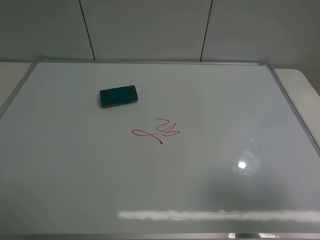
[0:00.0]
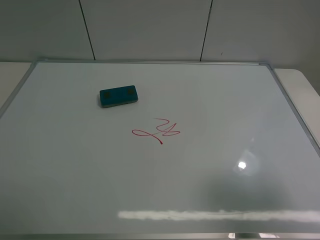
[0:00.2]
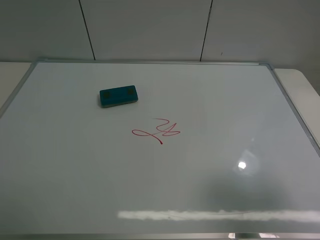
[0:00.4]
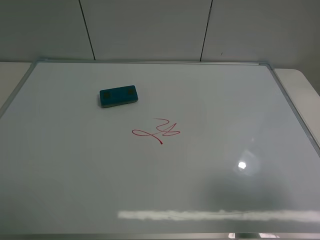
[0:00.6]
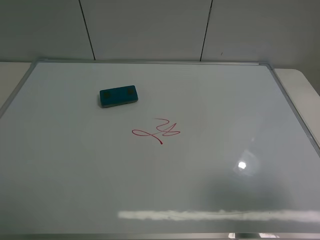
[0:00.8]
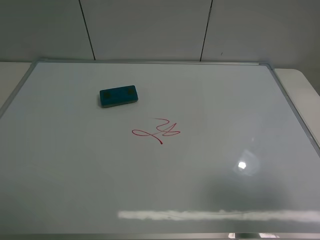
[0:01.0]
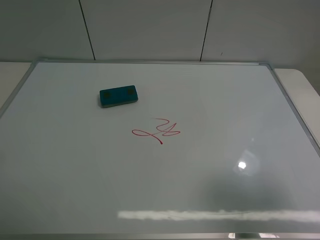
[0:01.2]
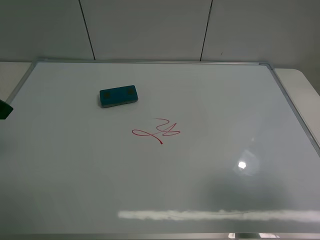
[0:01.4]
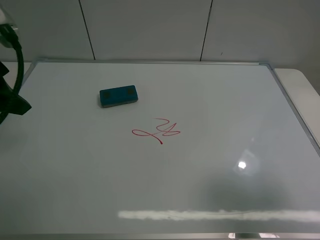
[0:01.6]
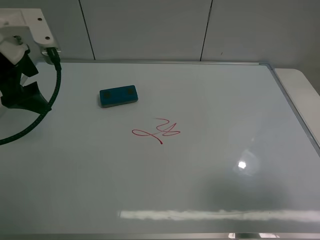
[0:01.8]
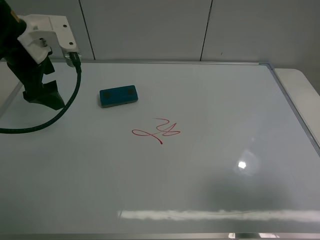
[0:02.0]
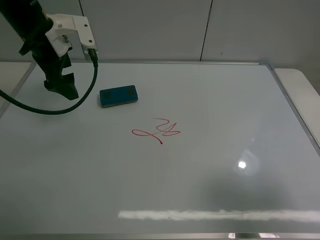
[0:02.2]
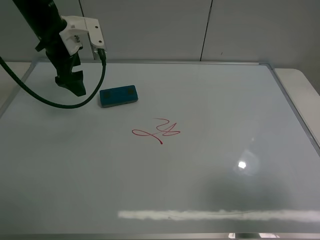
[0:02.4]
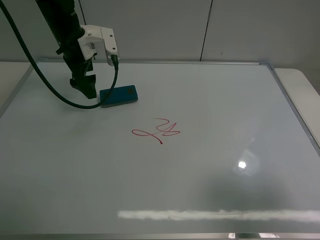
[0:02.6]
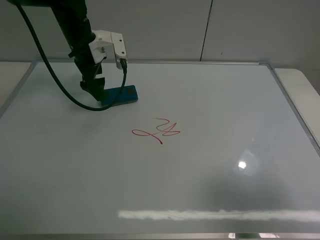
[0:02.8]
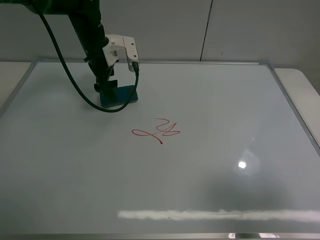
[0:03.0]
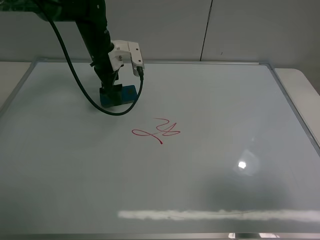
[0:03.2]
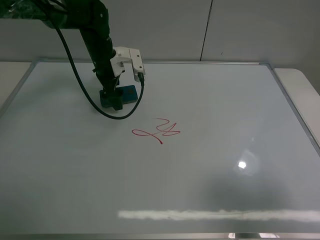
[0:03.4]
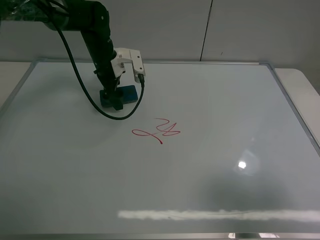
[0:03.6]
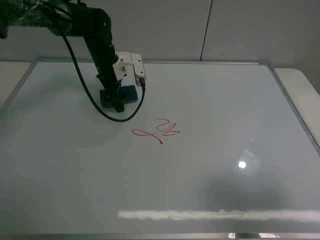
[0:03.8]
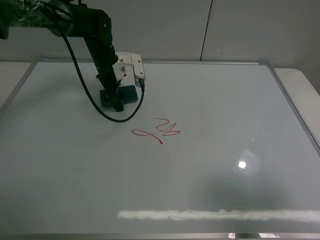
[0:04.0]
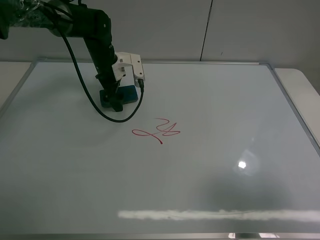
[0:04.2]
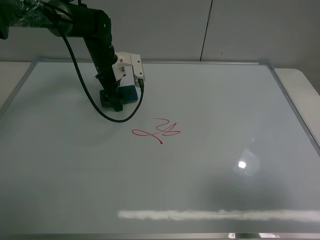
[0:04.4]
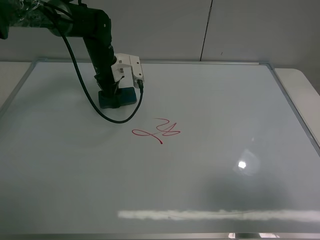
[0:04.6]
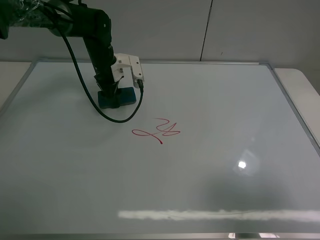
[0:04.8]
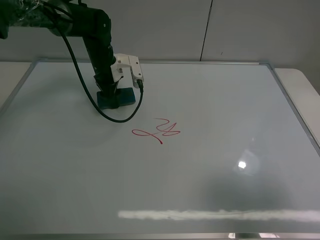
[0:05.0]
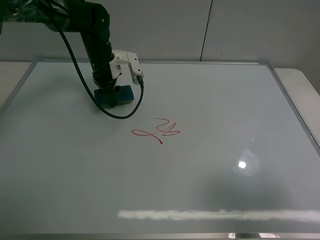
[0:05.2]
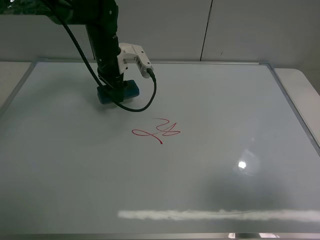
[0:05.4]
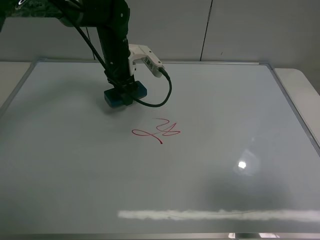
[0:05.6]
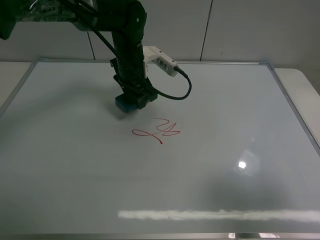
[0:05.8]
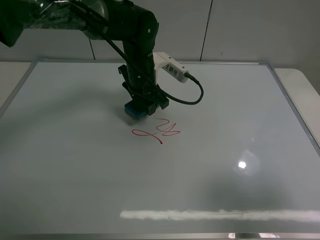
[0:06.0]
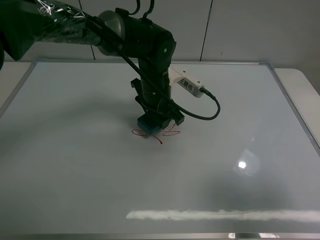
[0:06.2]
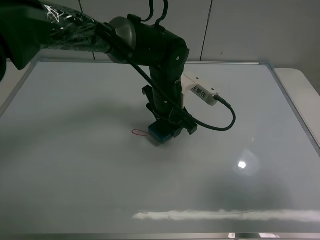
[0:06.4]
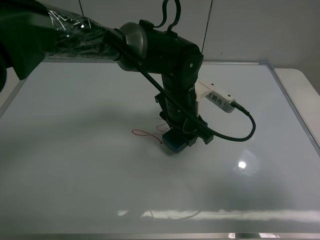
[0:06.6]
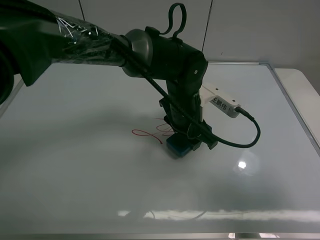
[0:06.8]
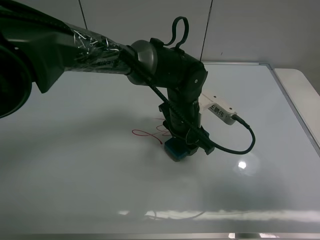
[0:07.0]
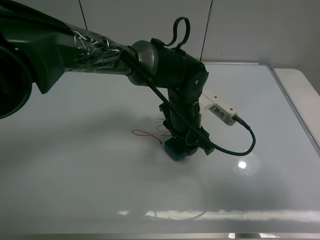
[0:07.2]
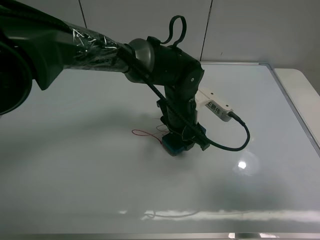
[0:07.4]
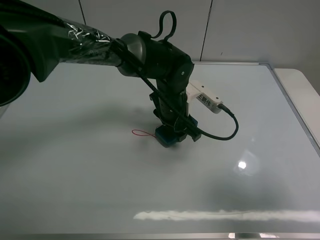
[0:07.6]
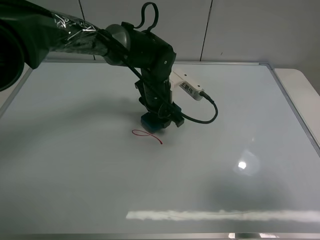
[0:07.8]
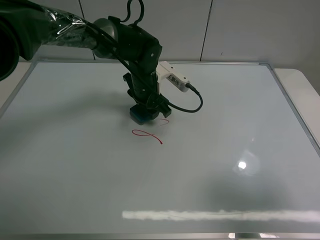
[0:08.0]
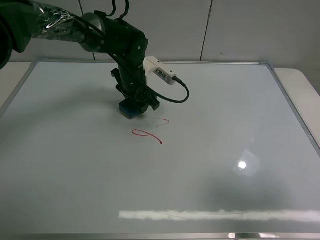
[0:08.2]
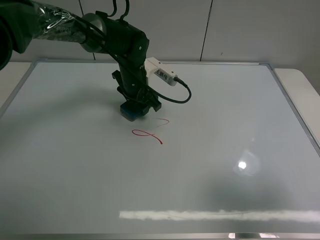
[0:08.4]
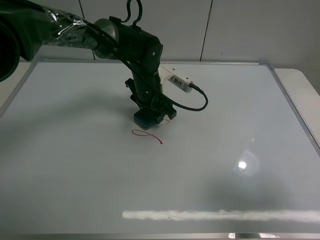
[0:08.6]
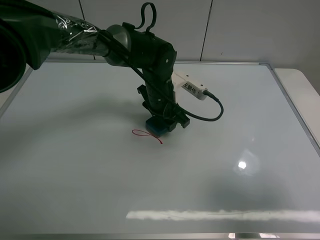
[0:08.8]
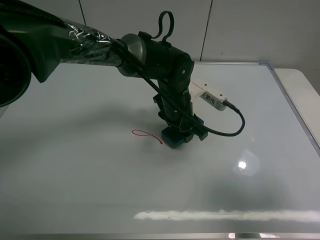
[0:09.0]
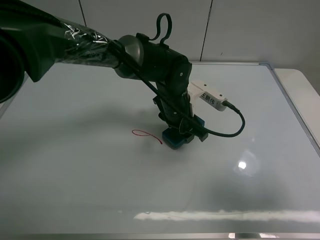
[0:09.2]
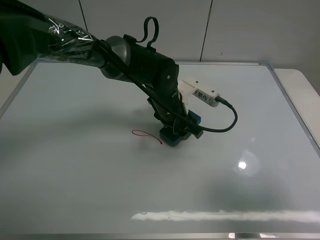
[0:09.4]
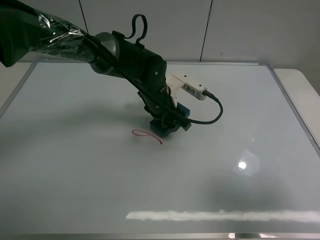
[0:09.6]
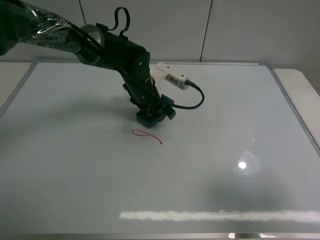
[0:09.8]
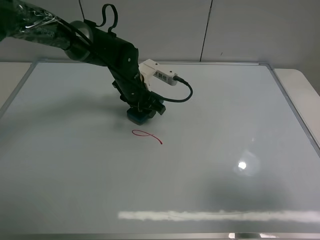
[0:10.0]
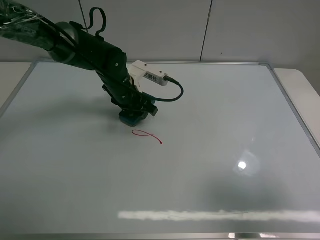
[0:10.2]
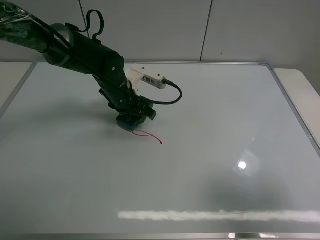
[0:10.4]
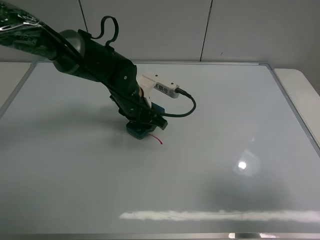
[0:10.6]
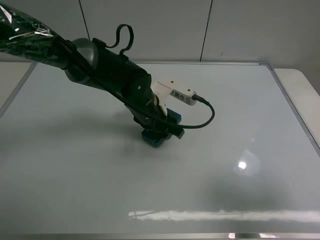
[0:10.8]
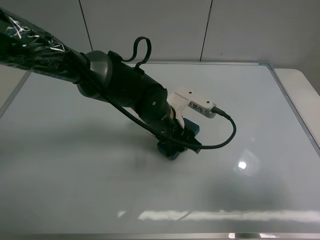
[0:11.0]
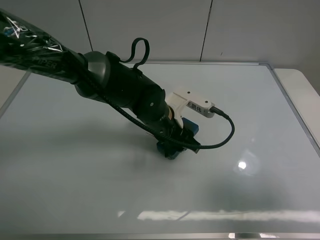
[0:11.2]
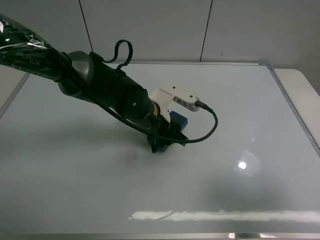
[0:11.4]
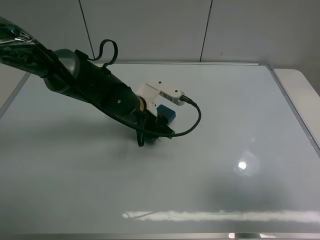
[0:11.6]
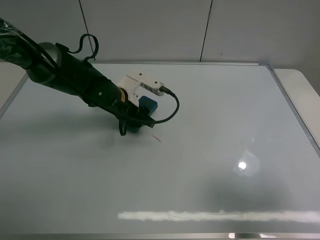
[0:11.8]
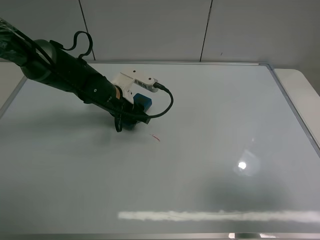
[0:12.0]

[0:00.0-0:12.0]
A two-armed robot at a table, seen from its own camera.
Task of the whole recording: use the left claw to pick up the whiteboard eraser, wipe the notes on the whiteboard clean, and then put them back in place.
Step, 0:00.0 to 0:04.8: Grasp the eraser with the left gripper.
0:00.0 to 0:01.6: The left gripper is displaced forward by about 25 cm.
0:01.6 to 0:03.0: The left gripper shifts approximately 30 cm forward, downward and to the right.
0:03.0 to 0:04.4: The left gripper shifts by some 5 cm.
0:04.4 to 0:06.0: The left gripper goes roughly 15 cm to the right and backward, and closes.
0:06.0 to 0:07.6: The left gripper heads to the right and backward, covering about 10 cm.
0:07.6 to 0:09.0: The left gripper goes to the left and returns, approximately 10 cm each way.
0:09.0 to 0:10.4: The left gripper heads to the left, covering approximately 15 cm.
0:10.4 to 0:12.0: The left gripper goes to the right and returns, about 10 cm each way.

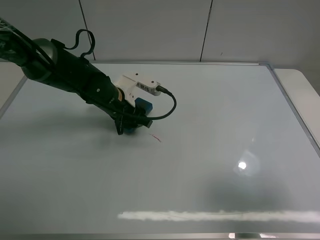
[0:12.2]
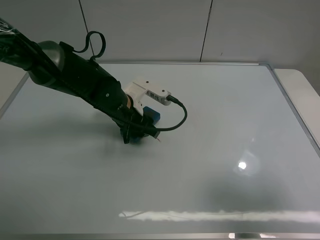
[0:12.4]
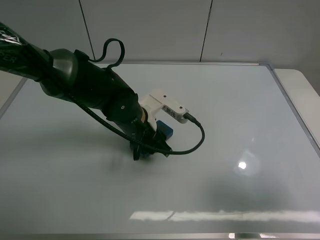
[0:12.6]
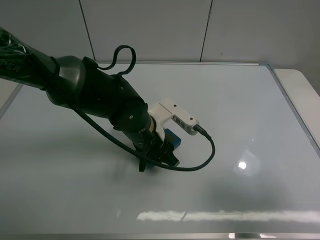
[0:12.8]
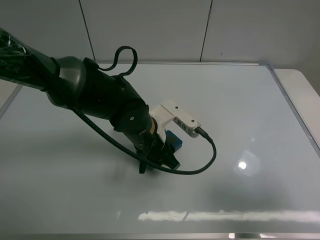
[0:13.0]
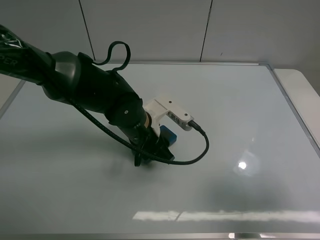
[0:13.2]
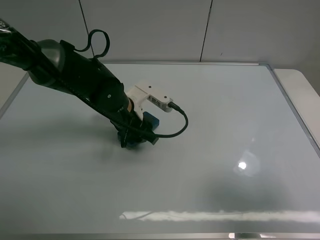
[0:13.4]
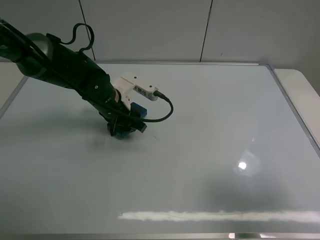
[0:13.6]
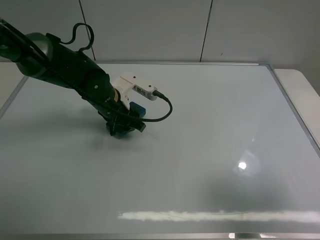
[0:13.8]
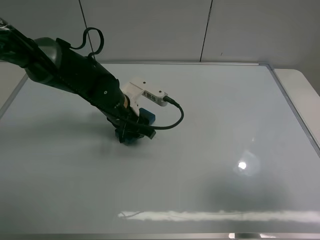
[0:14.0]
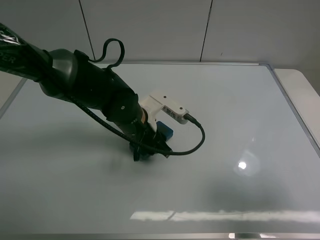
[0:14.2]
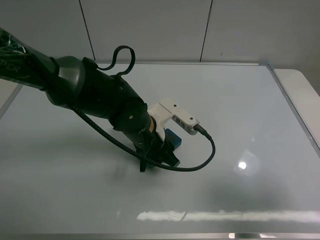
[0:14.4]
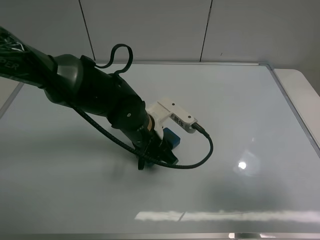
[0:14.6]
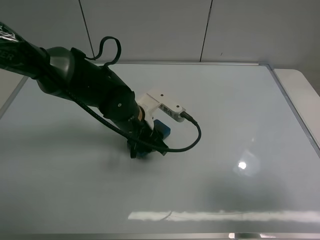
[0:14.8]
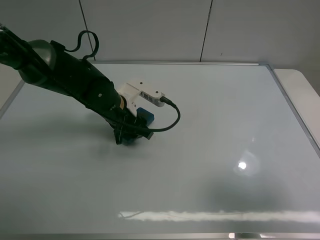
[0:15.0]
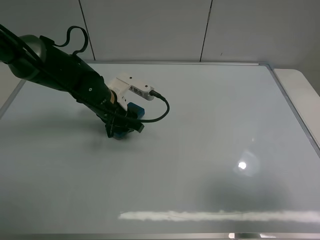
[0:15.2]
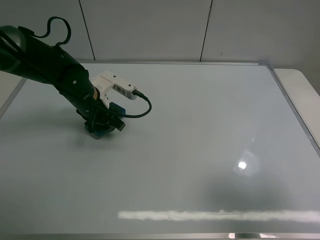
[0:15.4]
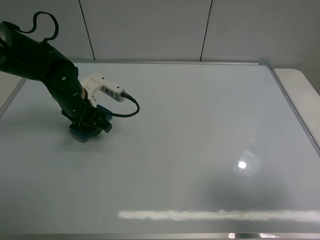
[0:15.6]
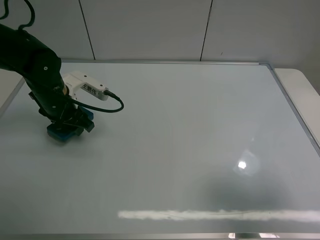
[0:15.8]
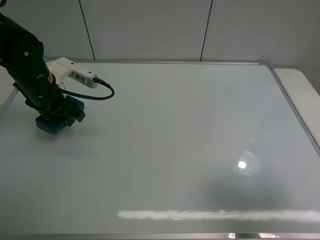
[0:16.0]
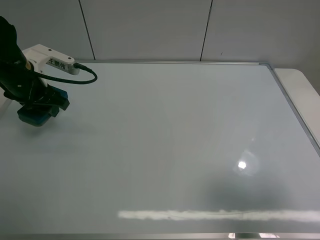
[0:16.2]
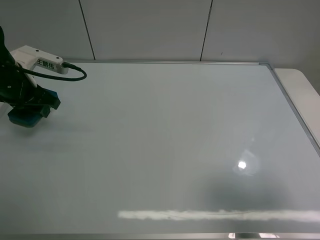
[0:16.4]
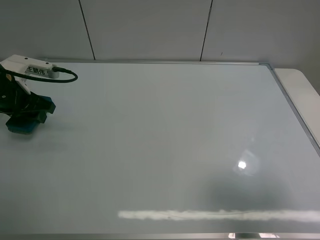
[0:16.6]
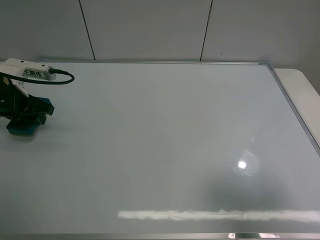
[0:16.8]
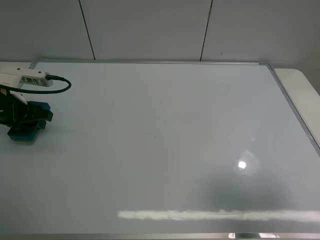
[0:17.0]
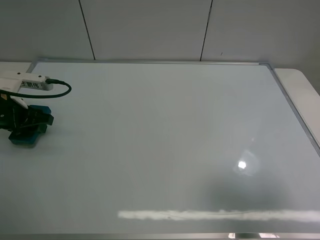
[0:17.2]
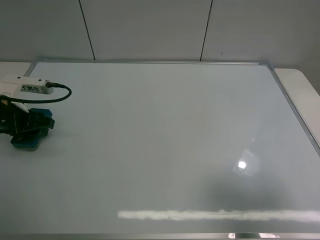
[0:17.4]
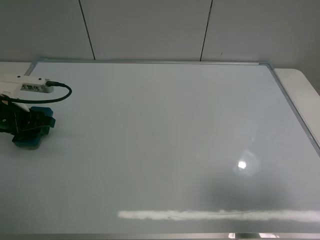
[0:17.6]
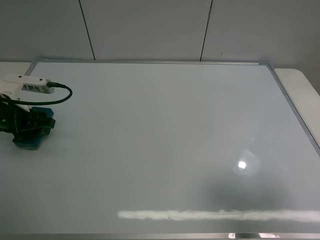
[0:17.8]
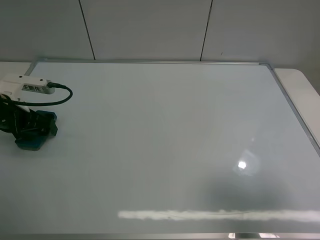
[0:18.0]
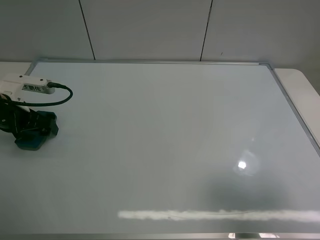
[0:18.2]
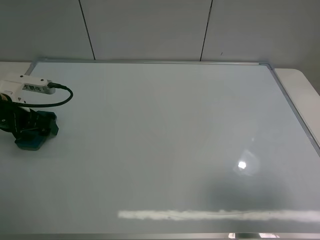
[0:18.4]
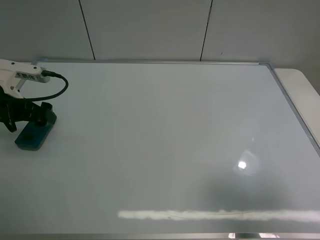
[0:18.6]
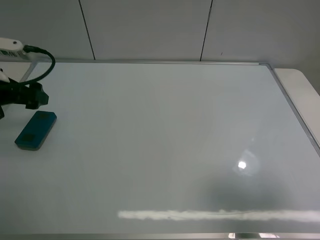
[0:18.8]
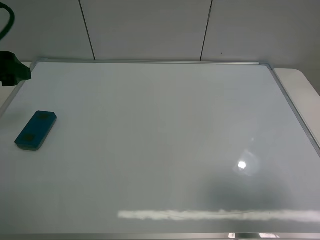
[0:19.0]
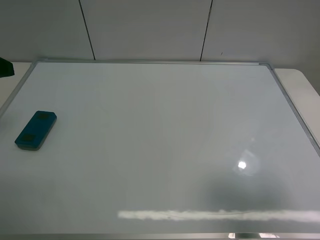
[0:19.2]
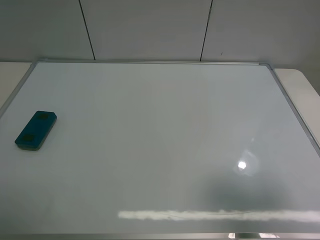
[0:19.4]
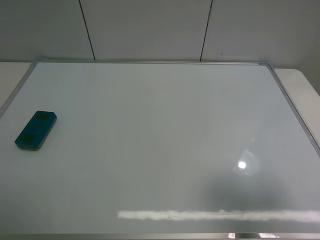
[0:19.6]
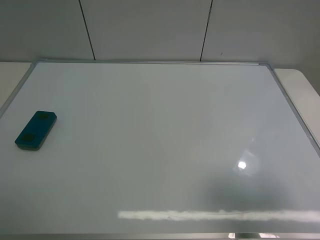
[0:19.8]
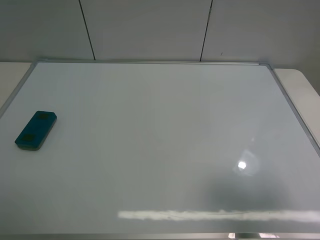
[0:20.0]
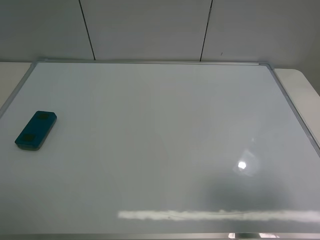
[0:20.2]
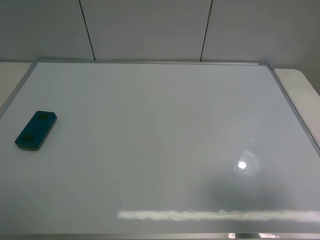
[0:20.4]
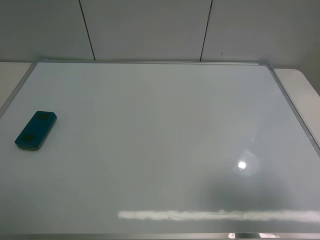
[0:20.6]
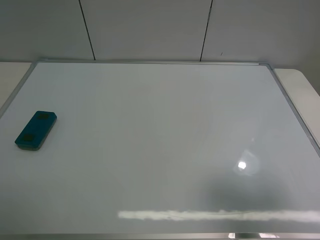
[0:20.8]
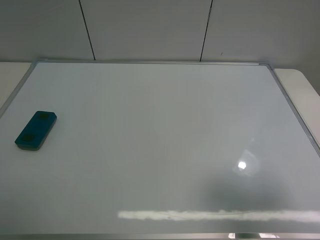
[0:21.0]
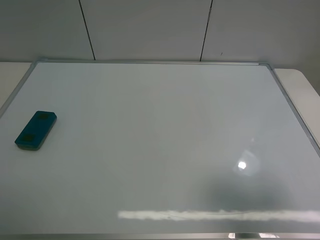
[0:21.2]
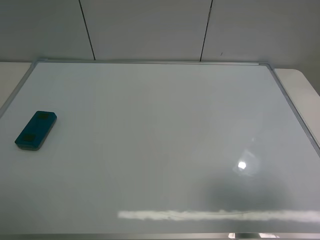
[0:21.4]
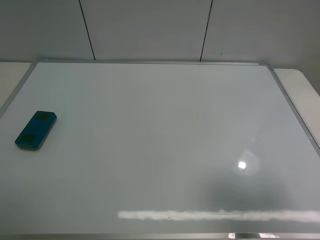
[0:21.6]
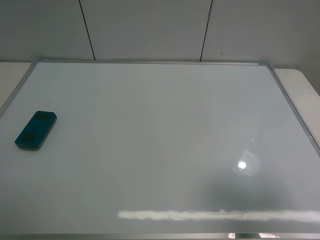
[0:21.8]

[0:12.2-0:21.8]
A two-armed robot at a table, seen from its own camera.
Task of the whole recording: use the left claw to pick up the whiteboard eraser, wipe the notes on the whiteboard clean, and then put them back in place.
Step, 0:12.2 to 0:15.2: Grasp the eraser and wipe the blackboard with the left gripper.
Step, 0:15.4 to 0:18.0: Place the eraser with the left gripper.
0:12.2 to 0:13.8: The left gripper goes to the right and returns, roughly 5 cm each way.
0:13.8 to 0:15.4: The left gripper travels to the left by some 5 cm.
0:15.4 to 0:17.0: The left gripper is displaced to the left by some 15 cm.
0:17.0 to 0:18.6: The left gripper opens its fingers.
0:18.6 to 0:20.2: The left gripper moves backward and upward, roughly 35 cm.
